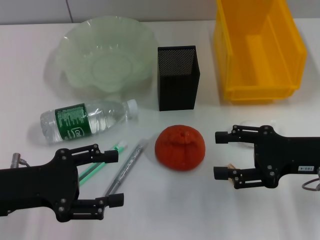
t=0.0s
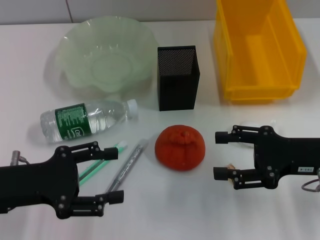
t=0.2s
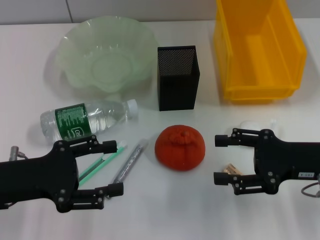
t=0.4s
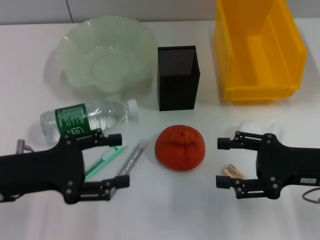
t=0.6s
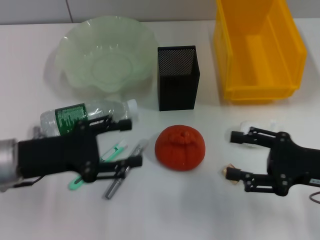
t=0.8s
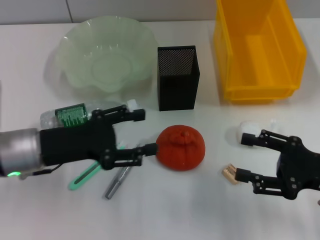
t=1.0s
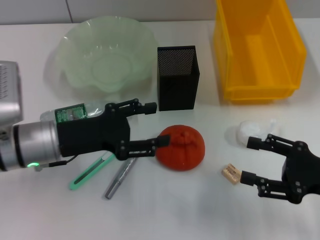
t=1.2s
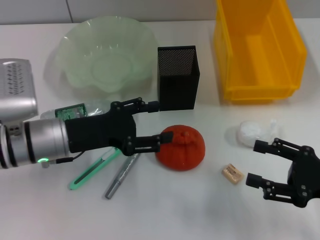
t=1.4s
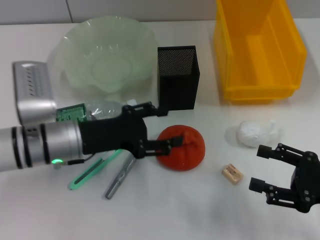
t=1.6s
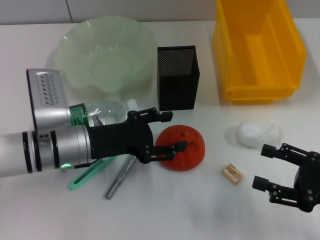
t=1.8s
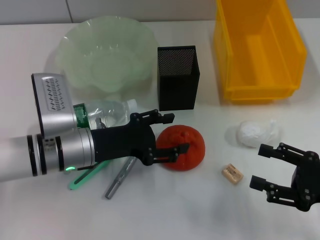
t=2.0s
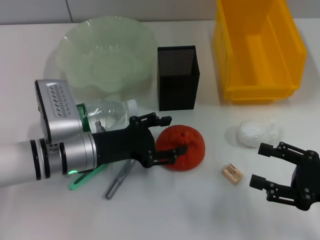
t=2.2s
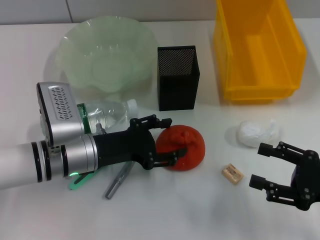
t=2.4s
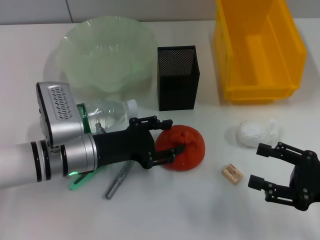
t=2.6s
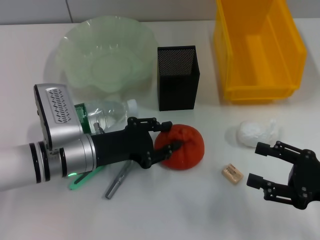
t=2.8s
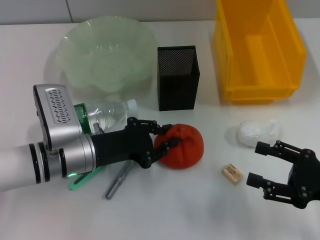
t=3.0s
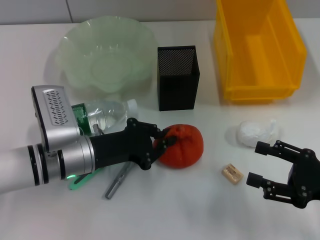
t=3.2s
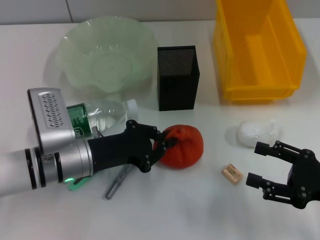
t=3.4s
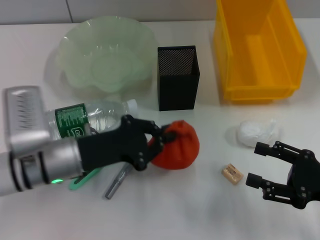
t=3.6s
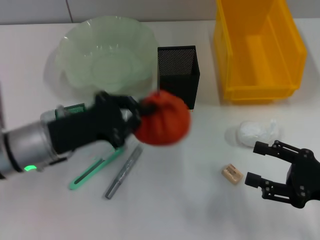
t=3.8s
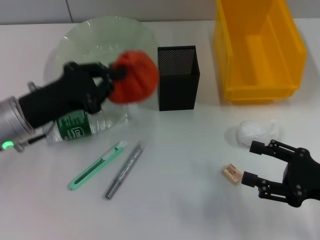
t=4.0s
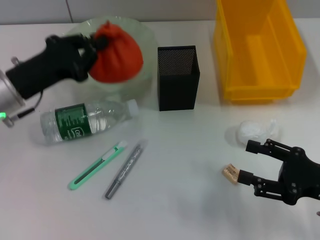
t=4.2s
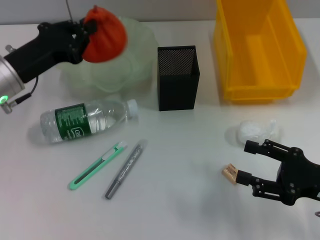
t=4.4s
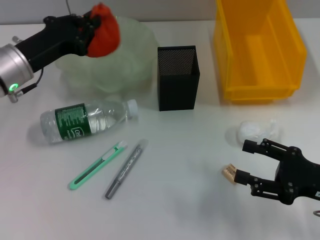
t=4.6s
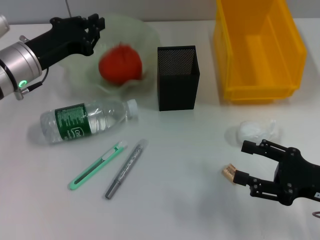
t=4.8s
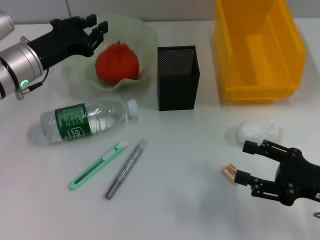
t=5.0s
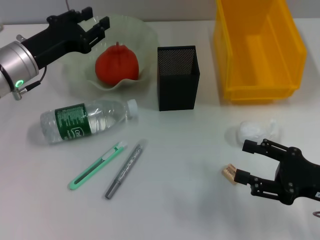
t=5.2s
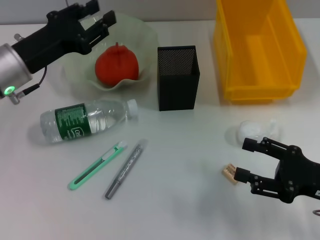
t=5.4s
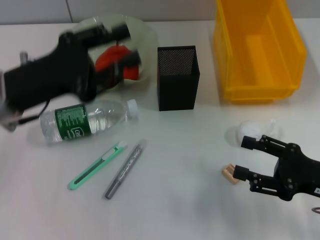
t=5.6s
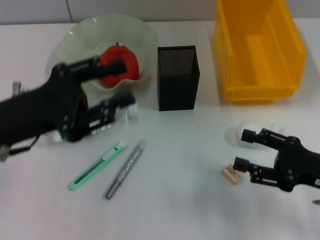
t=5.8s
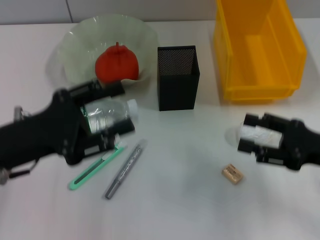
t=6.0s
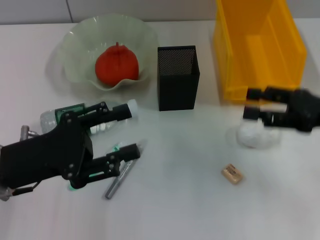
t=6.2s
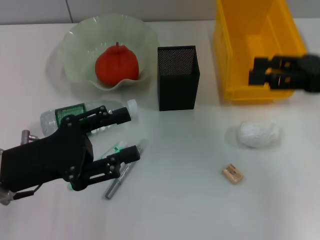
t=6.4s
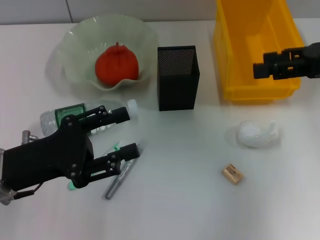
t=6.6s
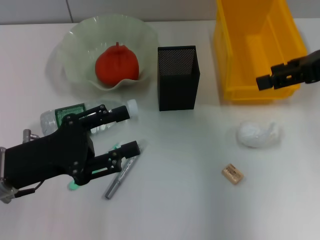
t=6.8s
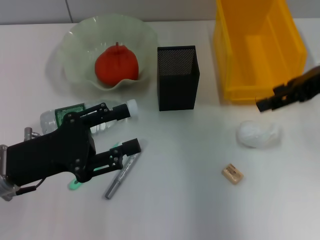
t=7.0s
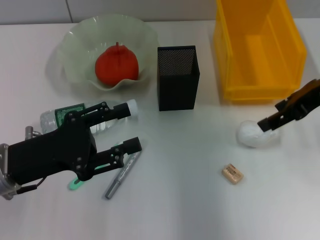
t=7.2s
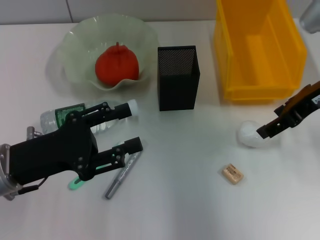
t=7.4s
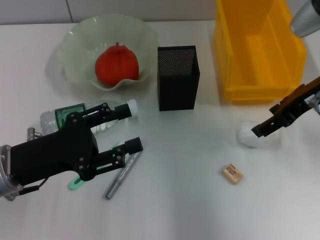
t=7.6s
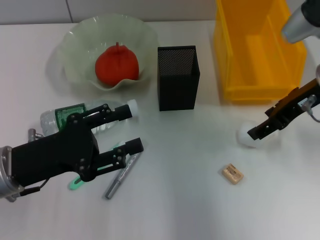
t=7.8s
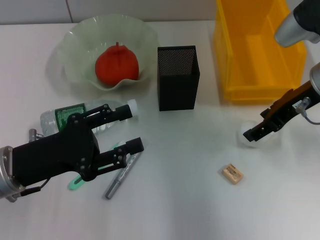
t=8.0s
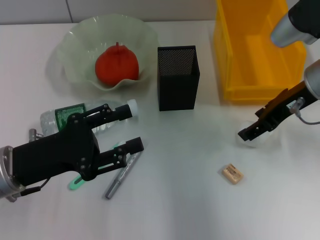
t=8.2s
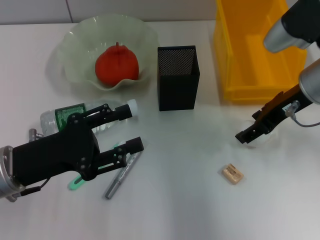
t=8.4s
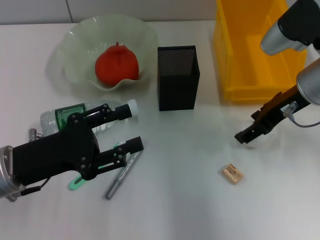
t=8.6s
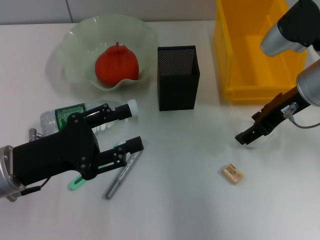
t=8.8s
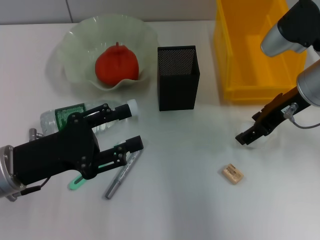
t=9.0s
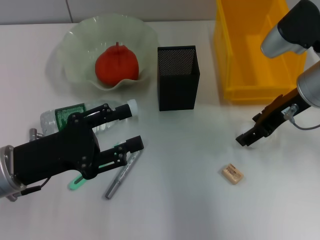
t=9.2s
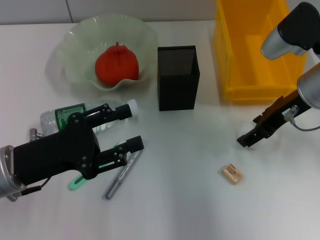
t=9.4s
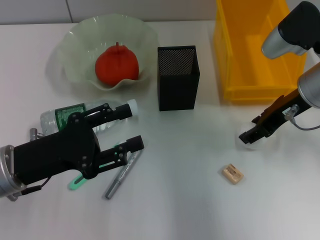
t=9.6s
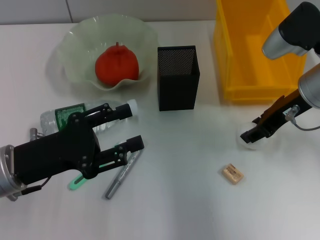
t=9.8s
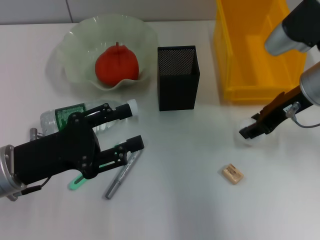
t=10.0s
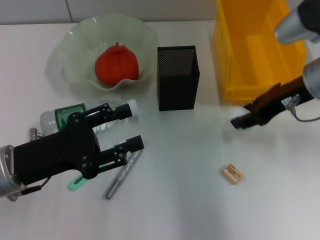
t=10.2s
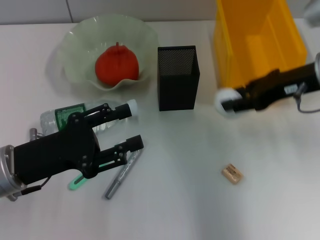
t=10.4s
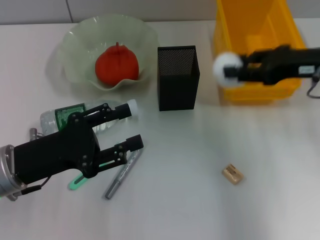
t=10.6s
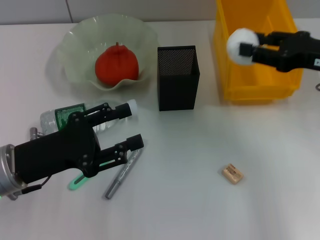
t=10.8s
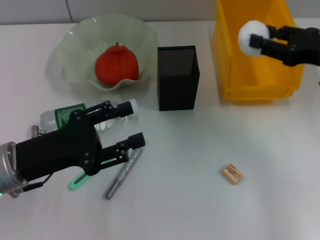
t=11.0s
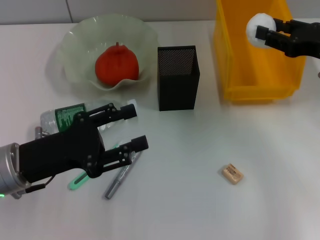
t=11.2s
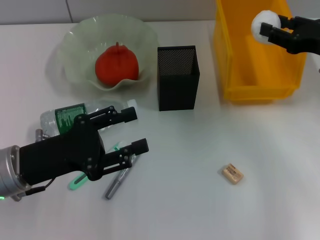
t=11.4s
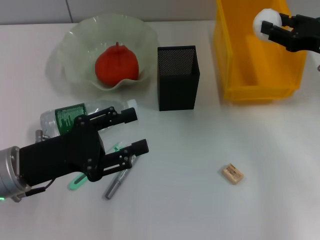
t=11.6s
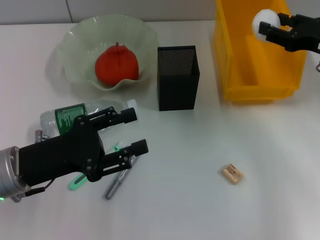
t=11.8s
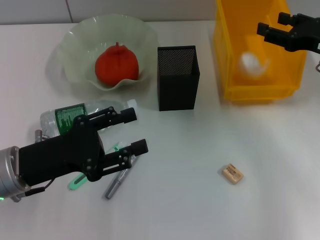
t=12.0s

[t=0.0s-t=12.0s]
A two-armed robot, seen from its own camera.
Step, t=0.0s to t=3.0s: Grab the orange with the left hand.
Step, t=3.2s to t=4.6s: Place the orange into the fruit bowl with the left hand.
Step, t=4.8s to t=9.4s: Grab the paper ball with the right hand.
Step, t=9.6s to t=11.8s: Place the paper ball into the trash can with the right hand.
t=0.0s to t=1.6s: The right gripper travels backward by roughly 5 cm; the left gripper is displaced to the right and forward by roughly 10 cm.
t=1.6s to t=3.0s: The left gripper closes.
t=3.0s to t=4.4s: The left gripper shifts approximately 10 cm to the left, upward and forward, and closes up.
t=4.4s to t=6.0s: The left gripper moves backward, approximately 10 cm, and opens. The right gripper shifts by approximately 5 cm.
t=6.0s to t=7.6s: The right gripper is displaced forward, upward and to the left by approximately 15 cm.
t=7.6s to t=9.0s: The grippers move only a little.
t=9.0s to t=10.4s: The right gripper closes its fingers.
t=10.4s to t=12.0s: The right gripper travels to the right by about 5 cm.

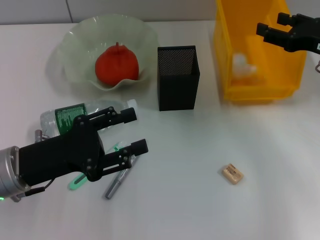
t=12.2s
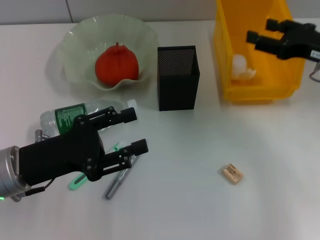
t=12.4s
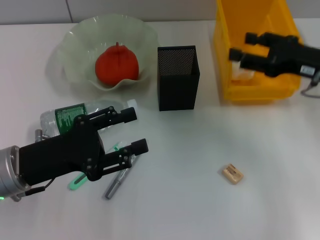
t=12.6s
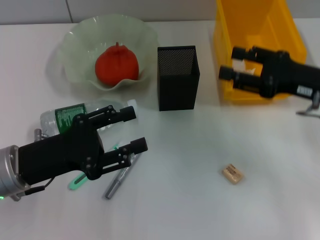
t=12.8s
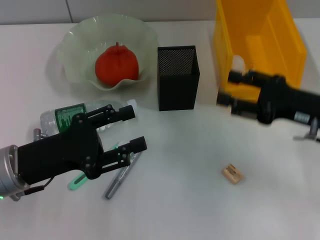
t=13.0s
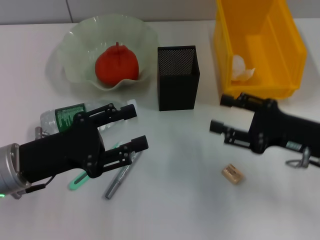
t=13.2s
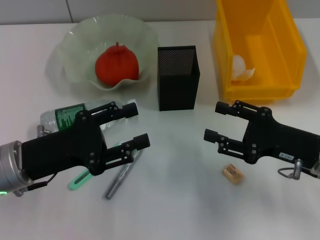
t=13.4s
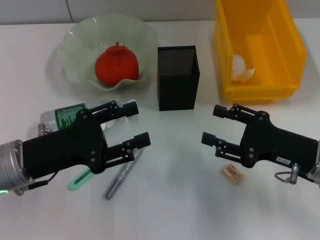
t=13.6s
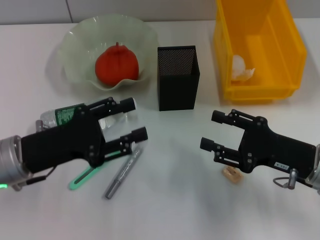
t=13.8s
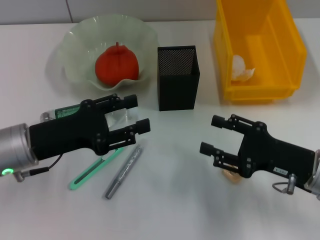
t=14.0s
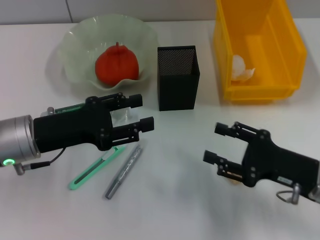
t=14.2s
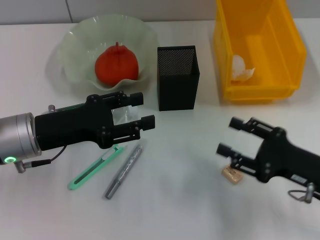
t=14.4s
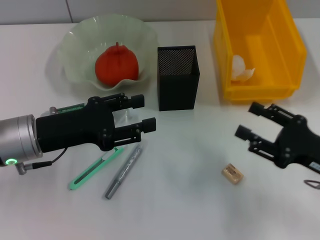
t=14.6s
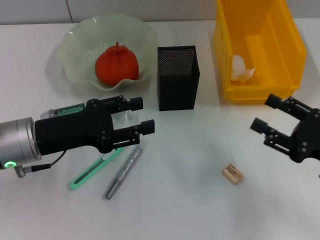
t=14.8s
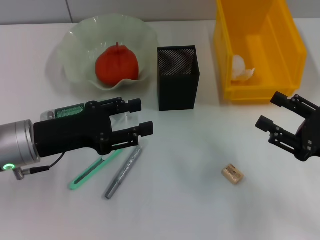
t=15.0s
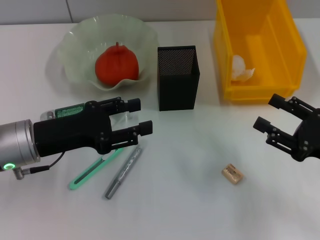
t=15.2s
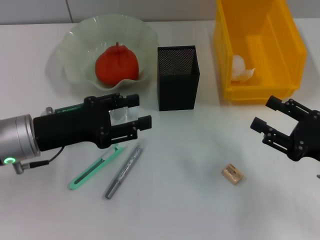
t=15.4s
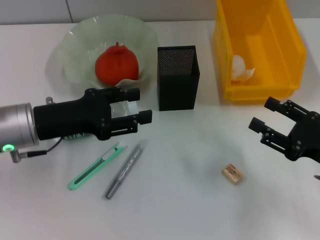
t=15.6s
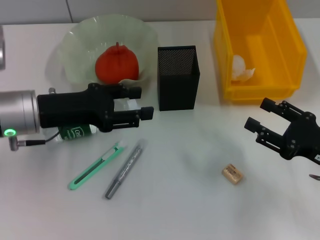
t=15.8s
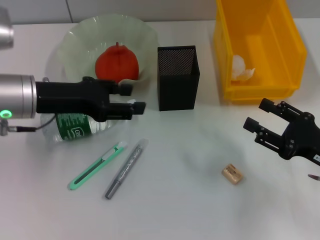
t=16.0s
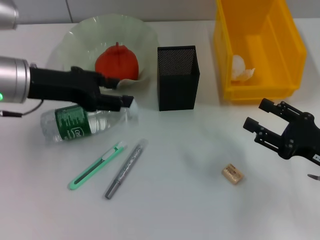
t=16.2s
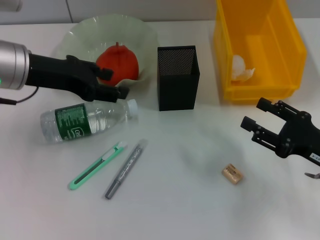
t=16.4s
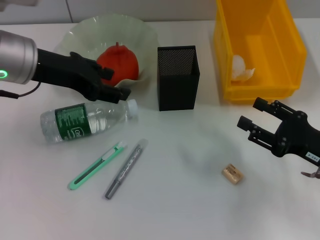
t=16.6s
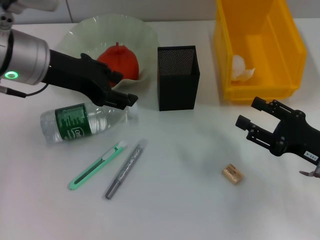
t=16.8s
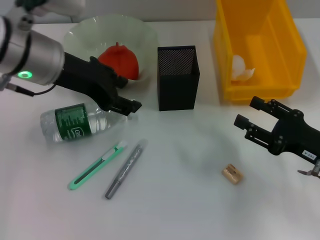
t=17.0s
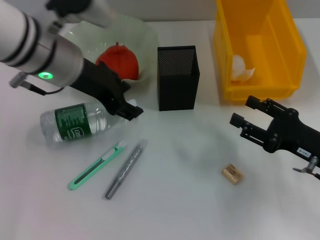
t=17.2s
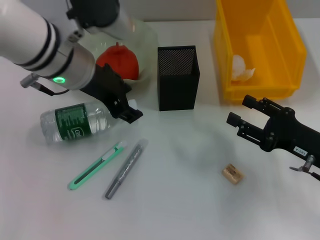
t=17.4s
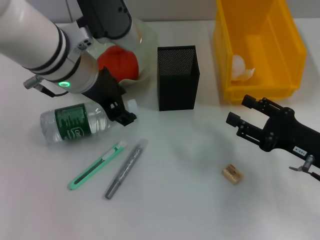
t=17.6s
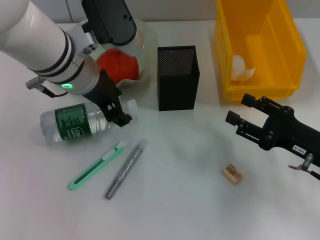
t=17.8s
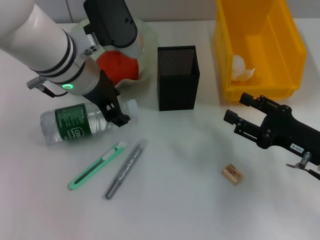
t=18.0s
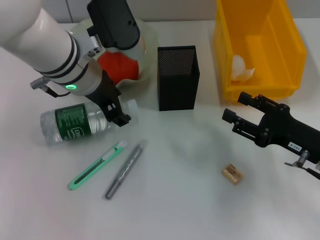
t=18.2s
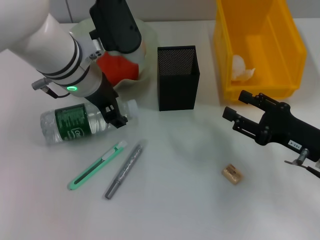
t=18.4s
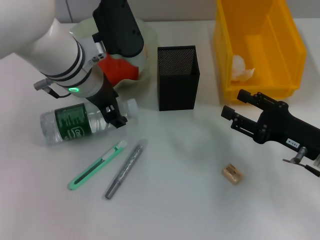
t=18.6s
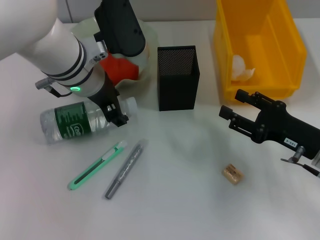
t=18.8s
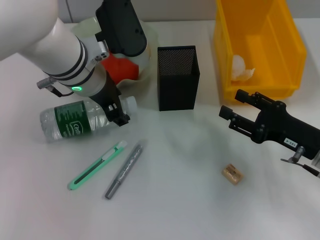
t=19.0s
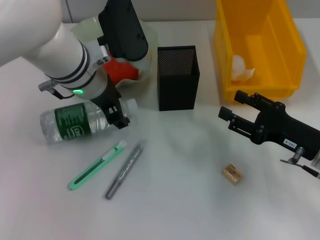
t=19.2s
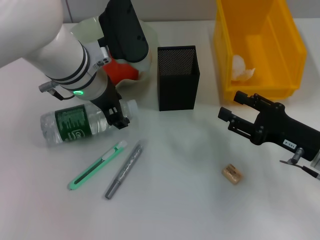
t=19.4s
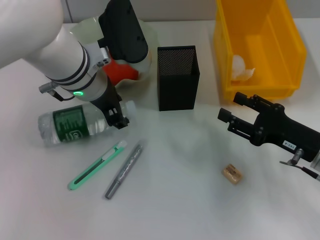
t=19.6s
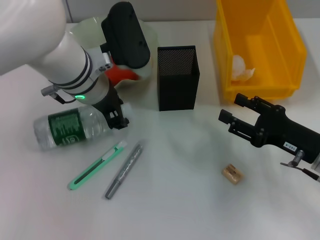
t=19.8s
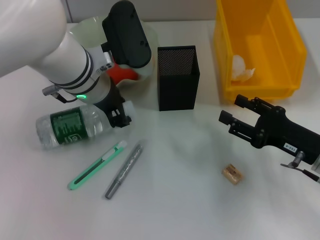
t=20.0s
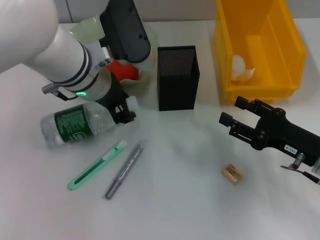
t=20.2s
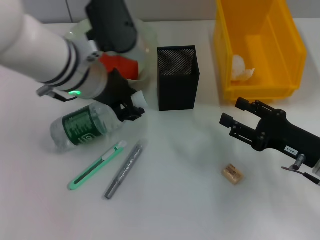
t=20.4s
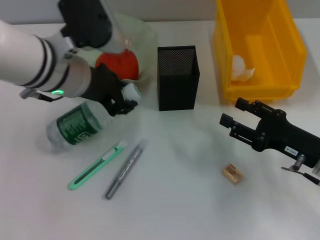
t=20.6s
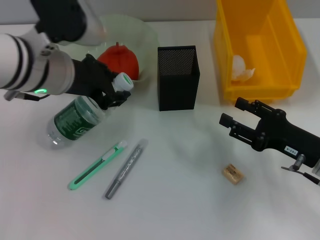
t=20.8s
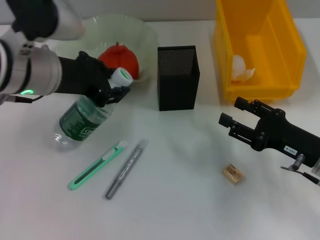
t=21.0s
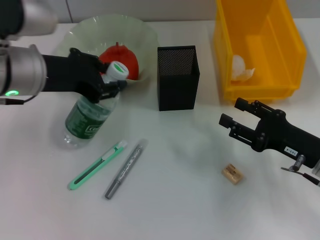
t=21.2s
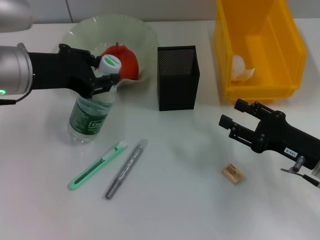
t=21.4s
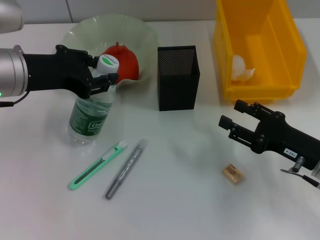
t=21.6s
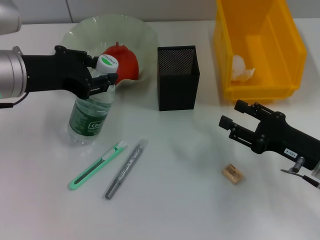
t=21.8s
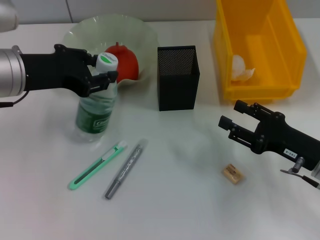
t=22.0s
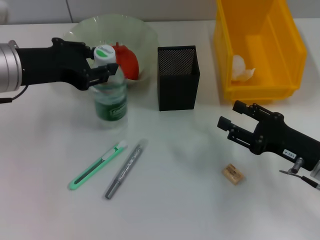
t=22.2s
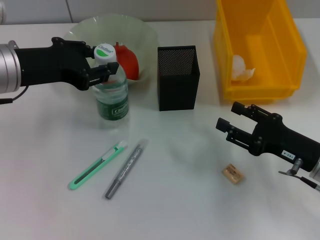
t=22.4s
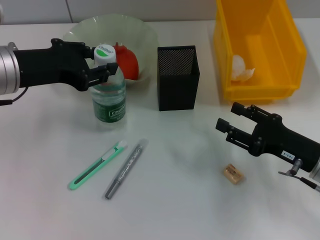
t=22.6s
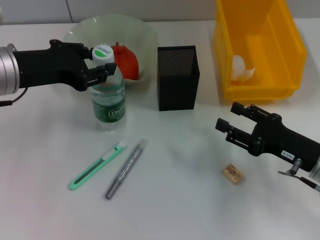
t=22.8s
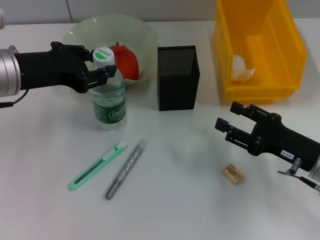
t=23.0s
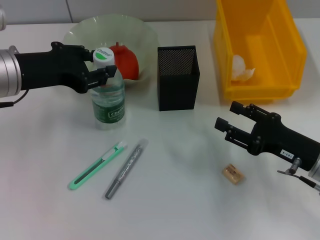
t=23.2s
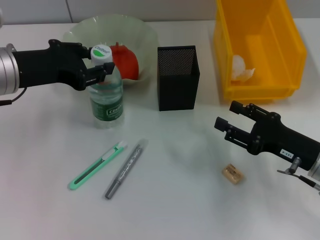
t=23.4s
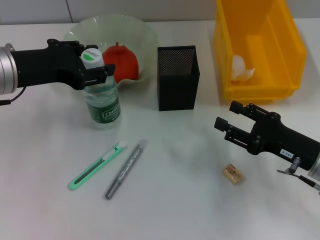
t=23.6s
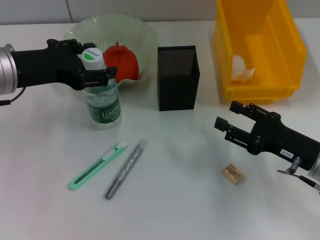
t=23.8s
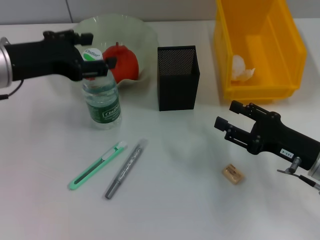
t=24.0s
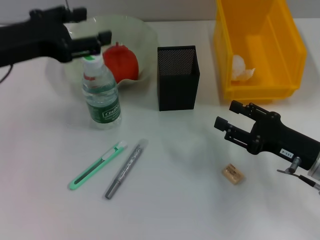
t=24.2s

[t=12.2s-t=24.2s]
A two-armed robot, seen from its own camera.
Step, t=12.2s to t=19.6s: Grab the water bottle with the left hand.
Step, t=19.8s to t=23.8s: Place the water bottle on the table with the left hand.
t=12.2s to t=13.8s: The right gripper is displaced backward, downward and to the left by approximately 15 cm.
t=13.8s to t=15.2s: The right gripper goes some 5 cm to the right.
t=15.2s to t=16.6s: The left gripper moves upward and forward, approximately 15 cm.
t=16.6s to t=18.2s: The left gripper heads to the right, covering some 10 cm.
t=18.2s to t=19.8s: The grippers stay close to where they were, moving slightly.
t=19.8s to t=21.2s: The left gripper goes some 10 cm to the left.
t=21.2s to t=22.6s: There are only small adjustments of the grippers.
t=22.6s to t=24.2s: The left gripper opens up.
